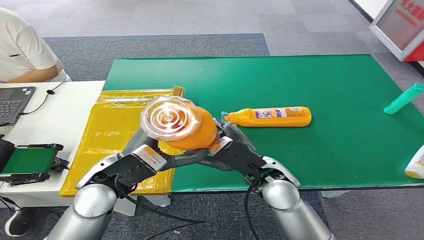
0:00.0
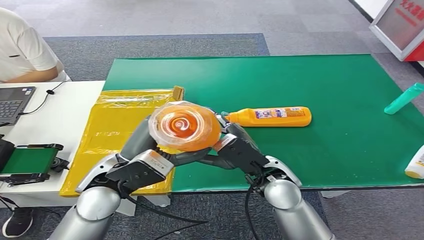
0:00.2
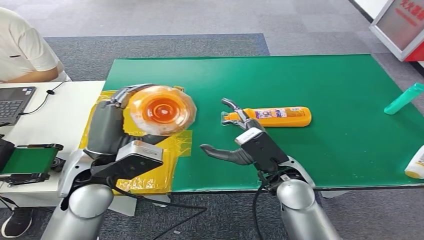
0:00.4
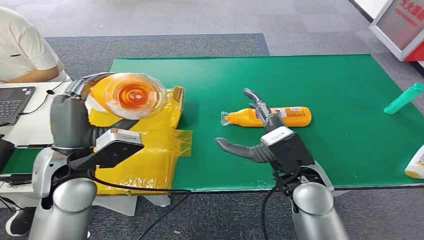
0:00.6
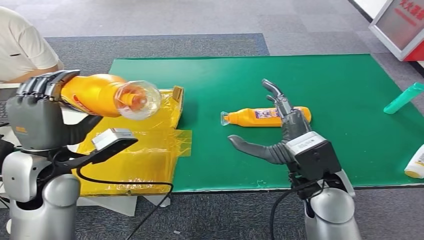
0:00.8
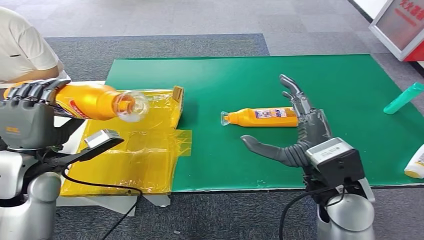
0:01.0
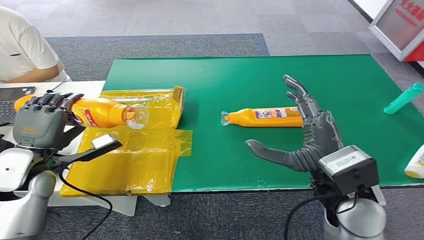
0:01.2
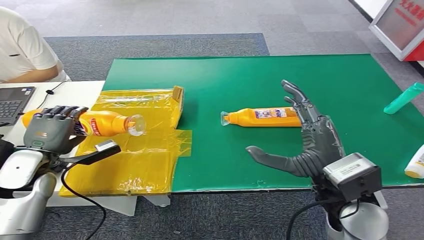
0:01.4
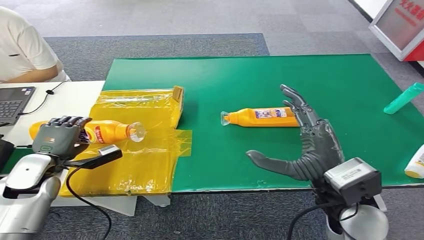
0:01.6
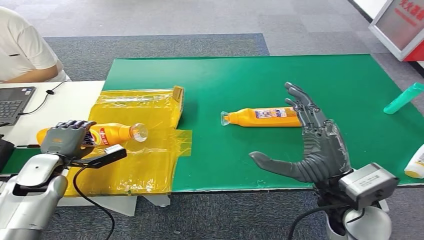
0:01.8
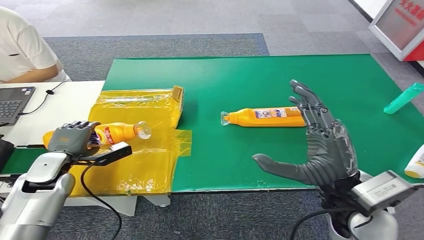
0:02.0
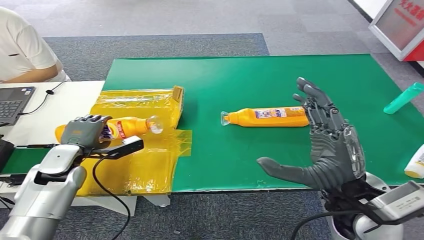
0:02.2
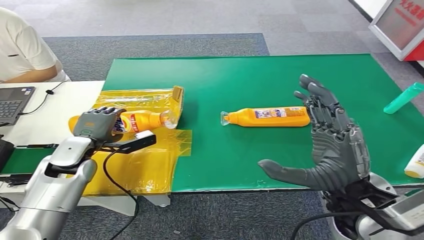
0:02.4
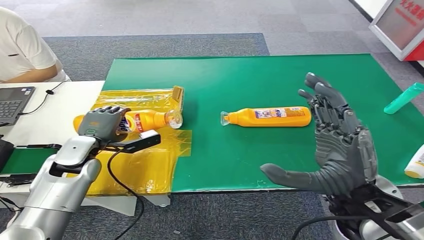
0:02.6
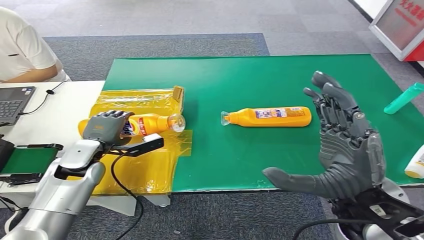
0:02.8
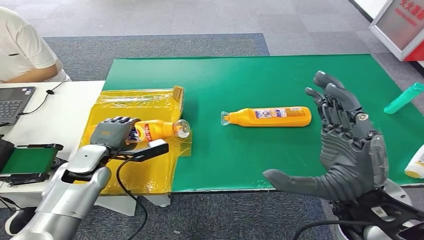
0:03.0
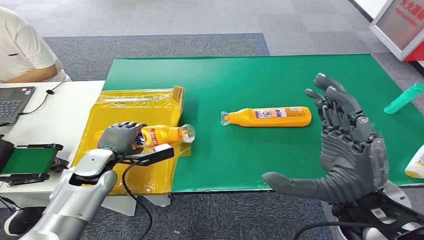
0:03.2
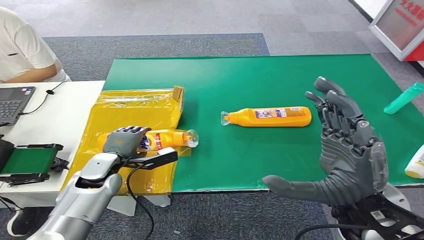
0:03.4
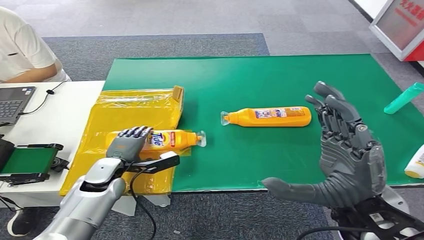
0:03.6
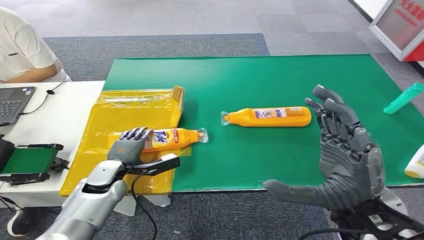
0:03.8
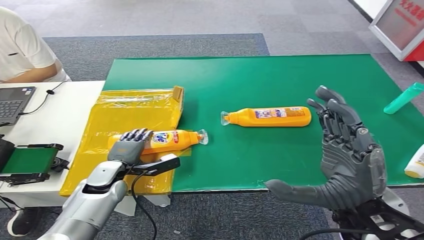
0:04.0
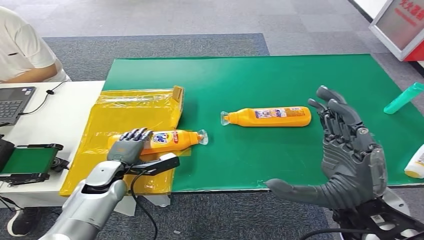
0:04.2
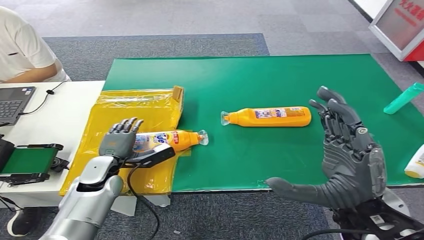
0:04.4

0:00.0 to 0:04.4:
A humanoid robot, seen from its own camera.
Step, 0:00.8 to 0:04.2: Turn the bottle to the front side.

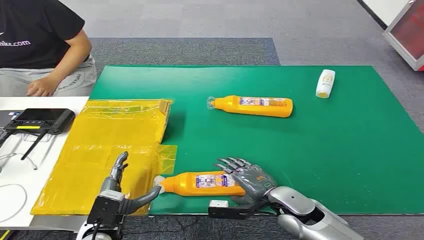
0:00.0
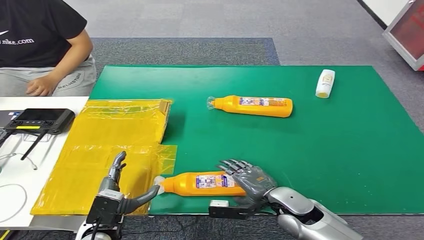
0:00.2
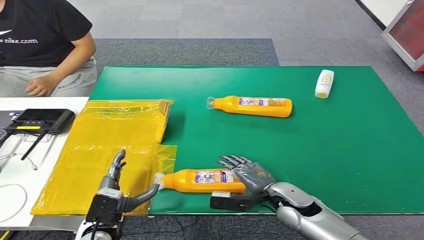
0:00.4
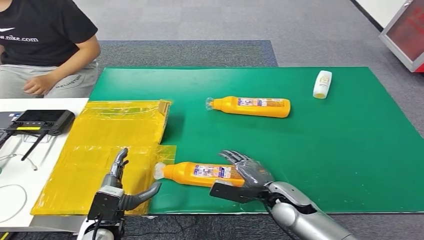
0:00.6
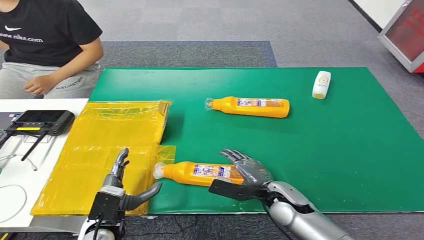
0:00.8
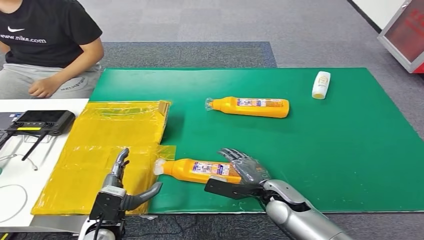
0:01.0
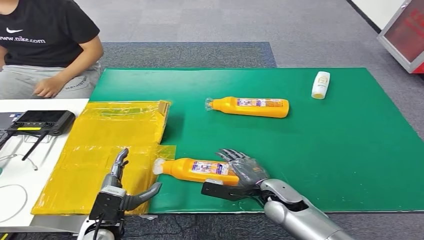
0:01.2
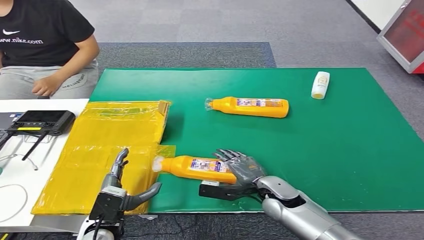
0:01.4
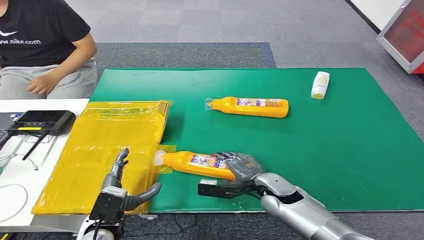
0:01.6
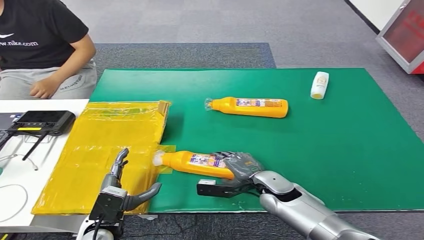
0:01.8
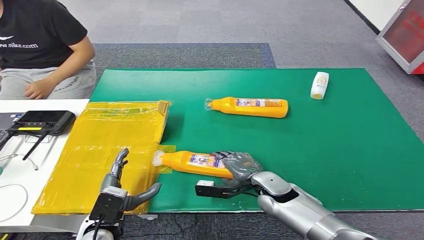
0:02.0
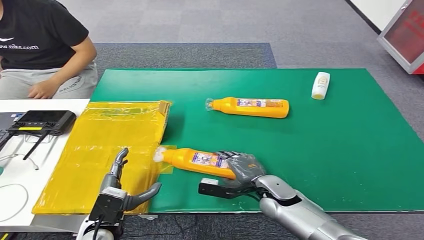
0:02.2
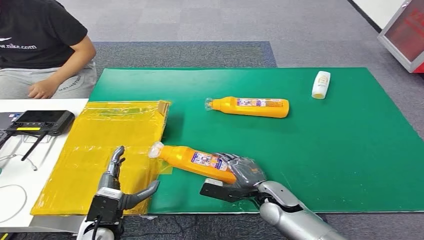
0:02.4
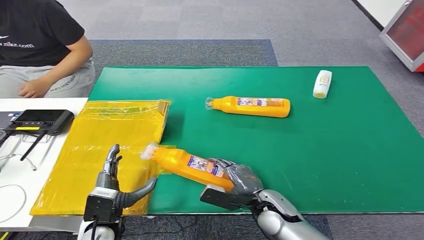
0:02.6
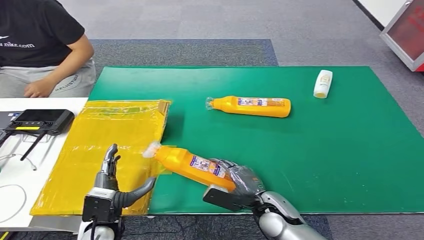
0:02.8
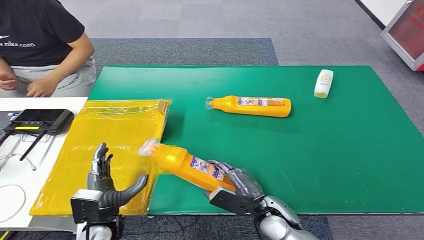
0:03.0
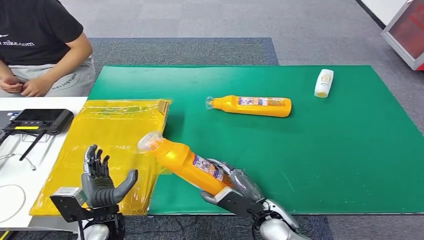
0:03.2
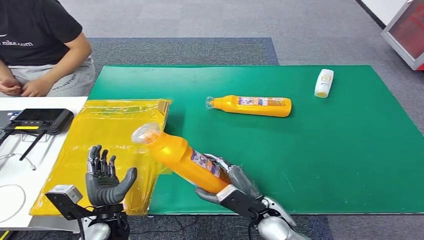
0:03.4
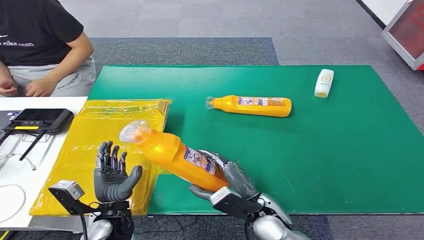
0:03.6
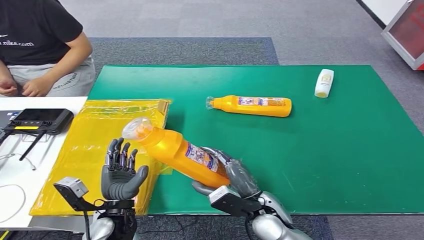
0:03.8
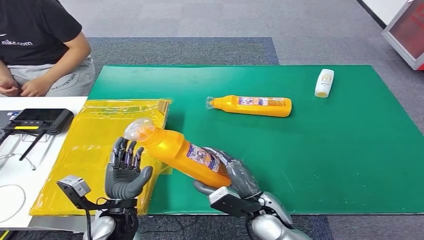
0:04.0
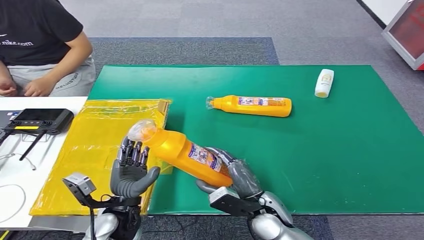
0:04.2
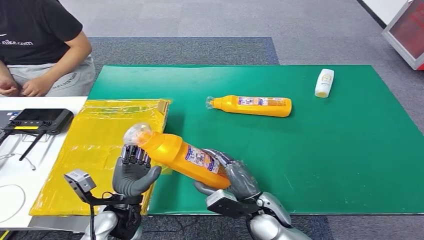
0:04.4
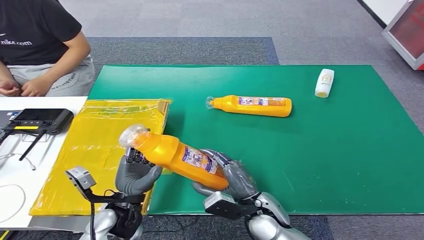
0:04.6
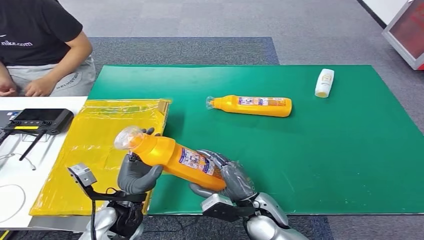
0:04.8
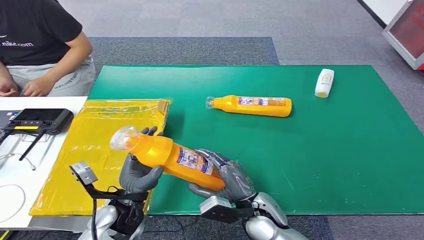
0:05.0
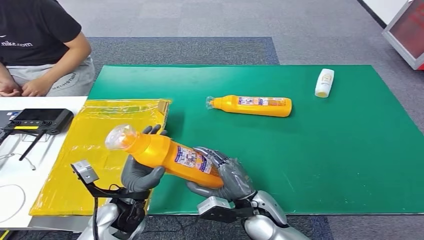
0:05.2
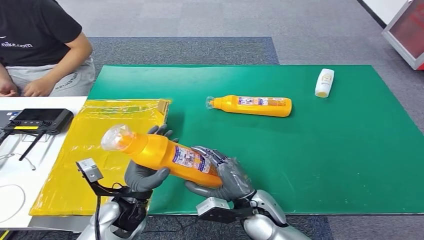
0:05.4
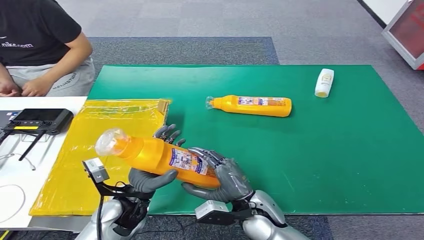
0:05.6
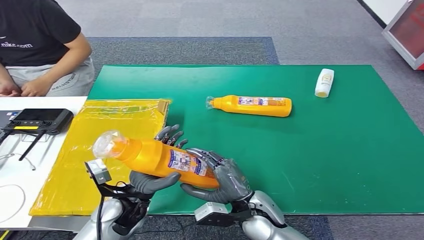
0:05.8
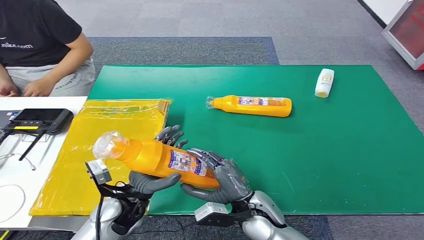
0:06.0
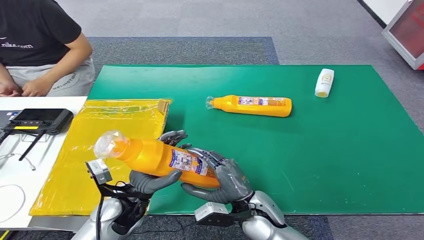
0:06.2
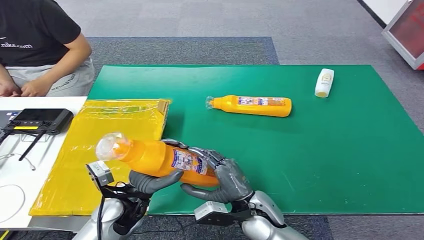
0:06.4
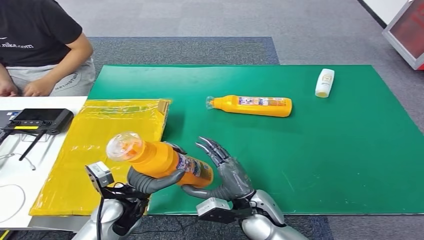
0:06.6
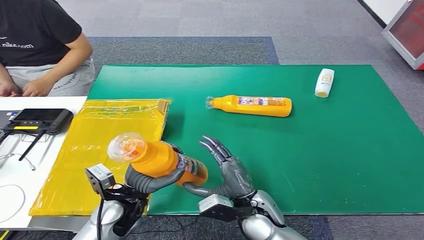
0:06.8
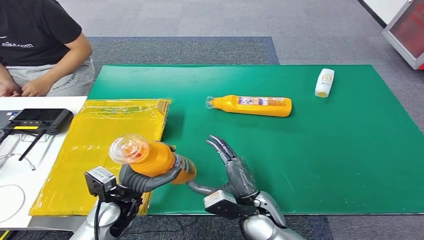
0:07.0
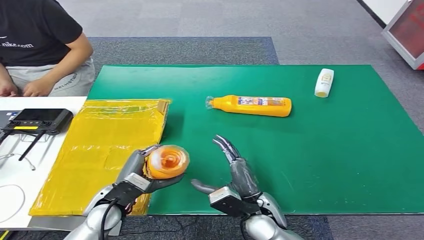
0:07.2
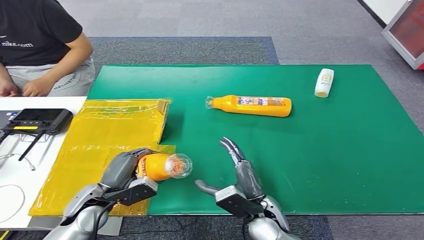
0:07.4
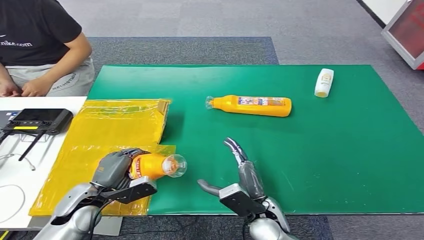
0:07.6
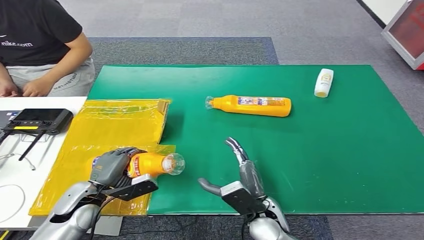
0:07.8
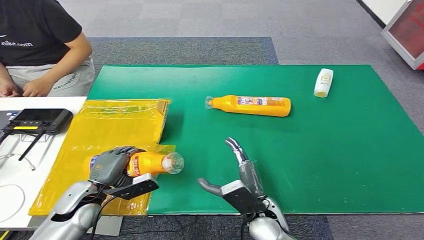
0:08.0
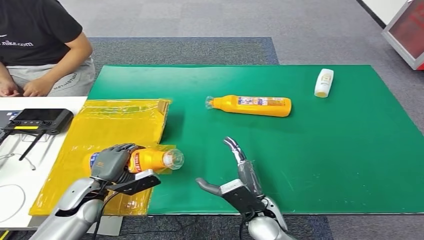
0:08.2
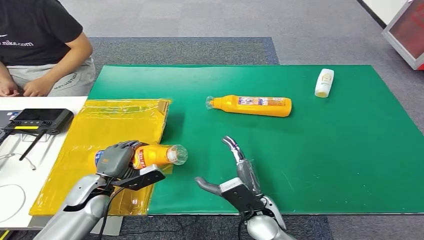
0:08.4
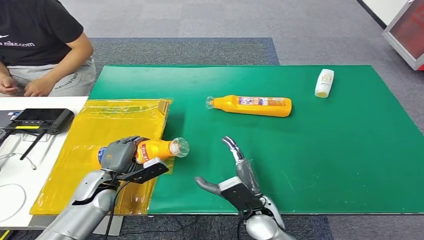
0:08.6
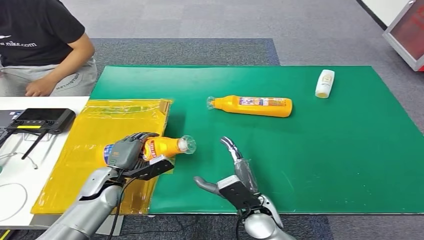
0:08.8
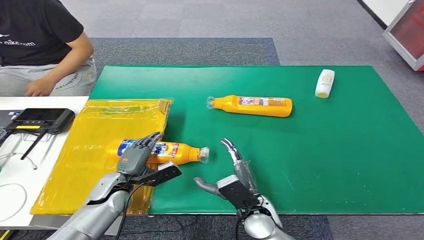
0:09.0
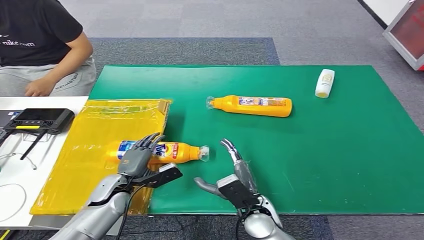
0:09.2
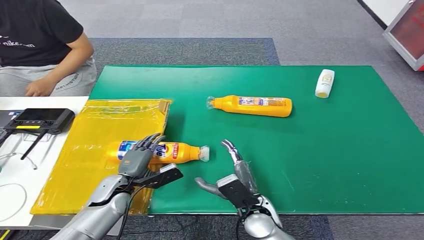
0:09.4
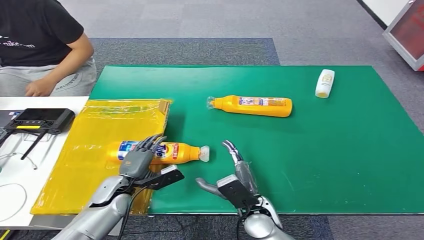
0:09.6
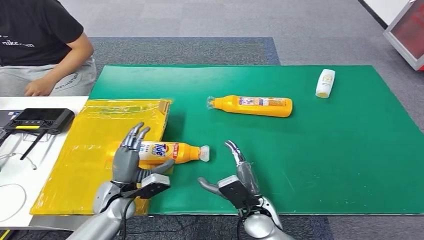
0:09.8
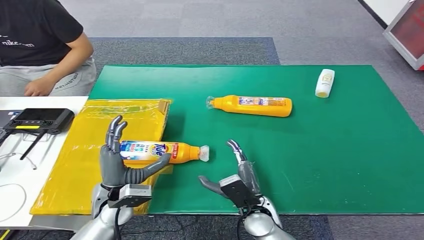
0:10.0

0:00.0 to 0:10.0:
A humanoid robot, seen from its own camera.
Step, 0:00.0 to 0:03.0: Pick up the bottle from the table.
Step, 0:03.4 to 0:10.0: Turn the bottle to the front side.
0:02.8 to 0:04.2: The left hand ends up some 5 cm from where it was.
0:07.2 to 0:08.6: The left hand shifts about 10 cm forward and to the left.
0:08.6 to 0:10.0: The left hand moves to the right, roughly 5 cm.
